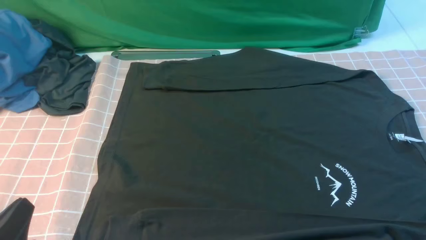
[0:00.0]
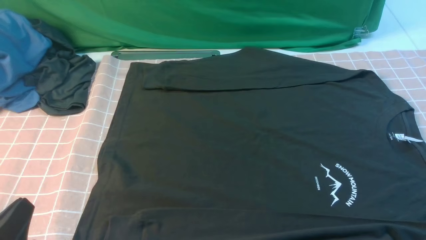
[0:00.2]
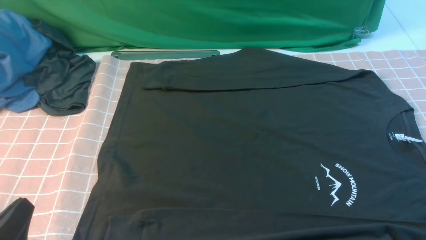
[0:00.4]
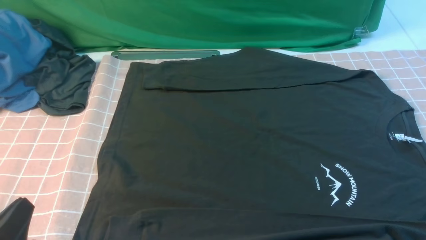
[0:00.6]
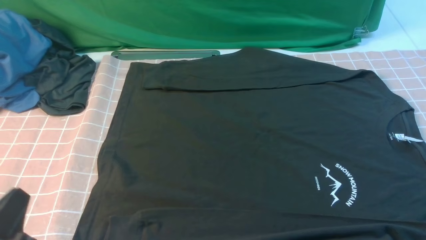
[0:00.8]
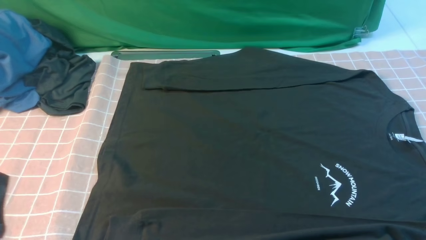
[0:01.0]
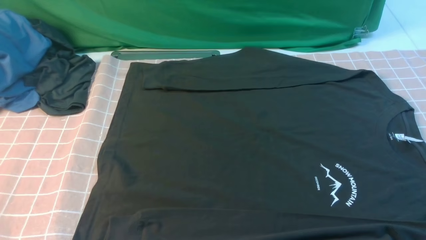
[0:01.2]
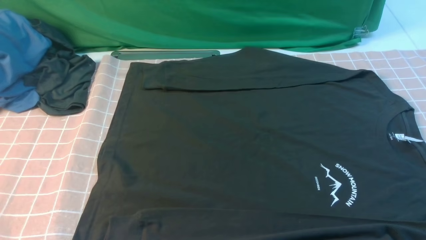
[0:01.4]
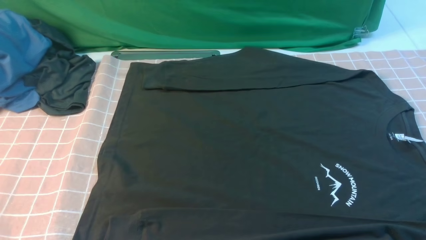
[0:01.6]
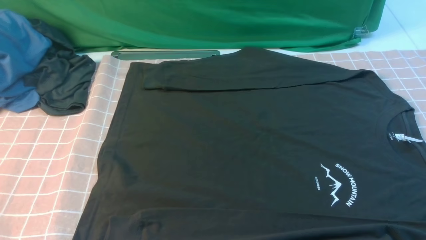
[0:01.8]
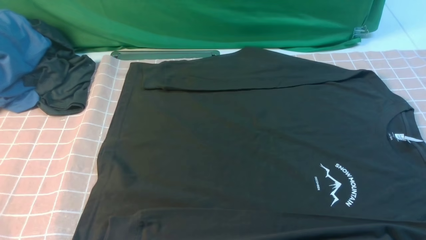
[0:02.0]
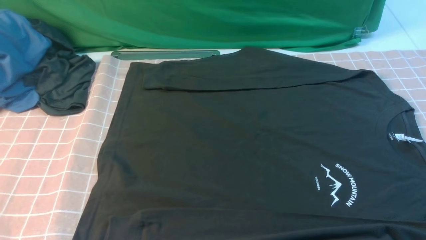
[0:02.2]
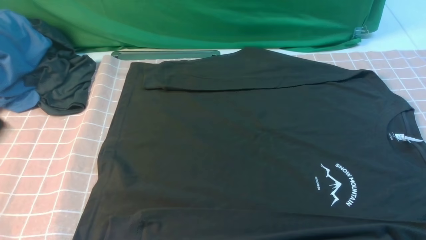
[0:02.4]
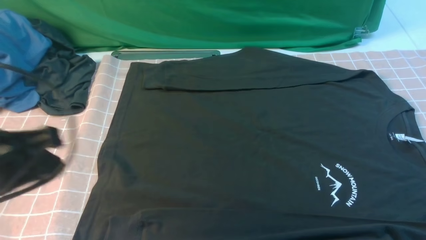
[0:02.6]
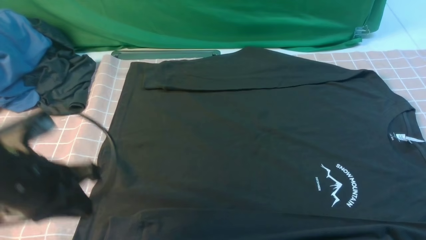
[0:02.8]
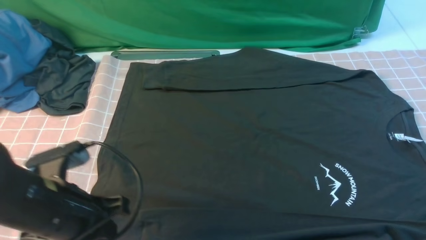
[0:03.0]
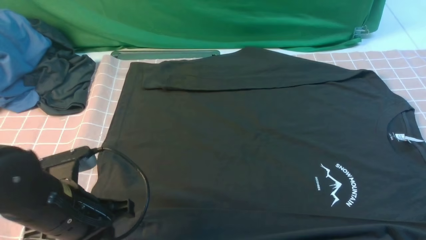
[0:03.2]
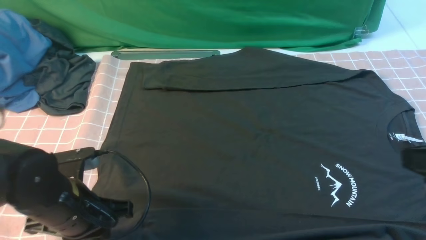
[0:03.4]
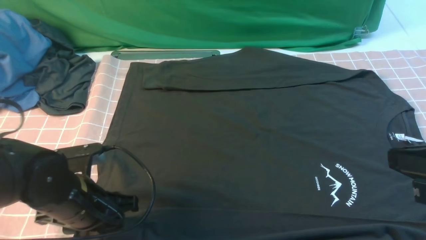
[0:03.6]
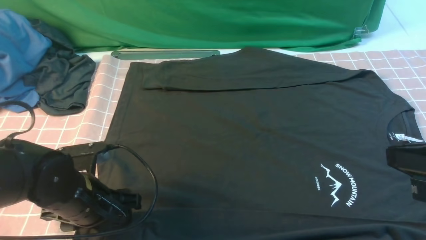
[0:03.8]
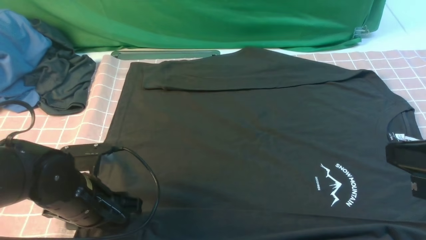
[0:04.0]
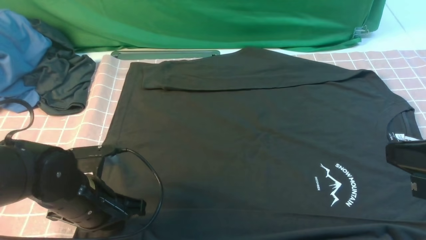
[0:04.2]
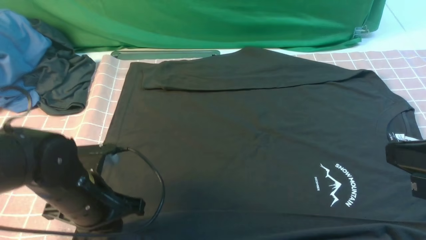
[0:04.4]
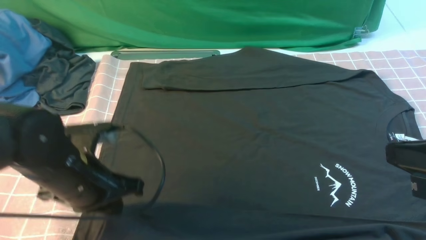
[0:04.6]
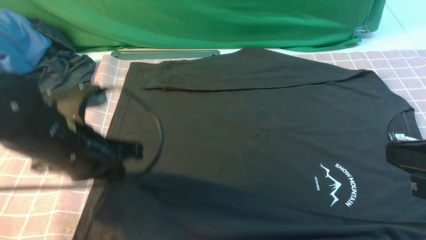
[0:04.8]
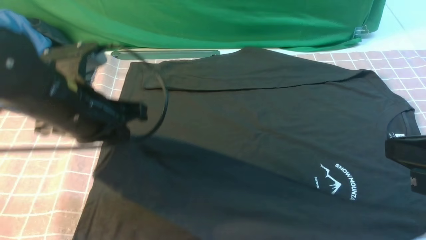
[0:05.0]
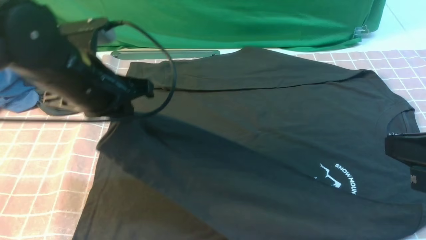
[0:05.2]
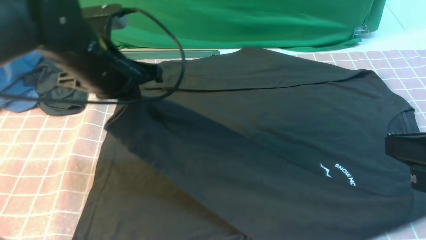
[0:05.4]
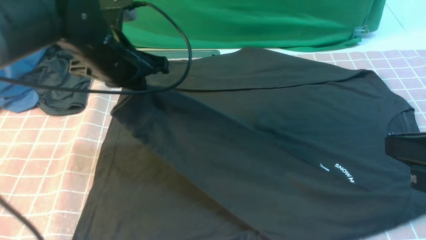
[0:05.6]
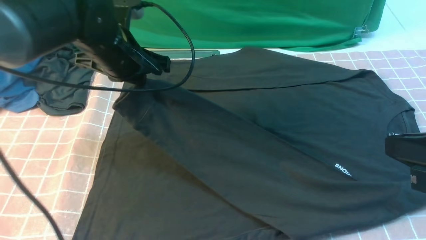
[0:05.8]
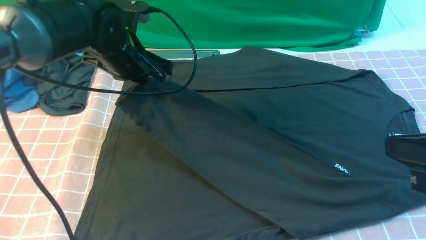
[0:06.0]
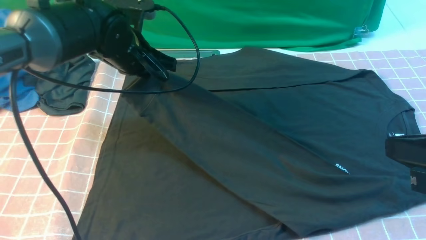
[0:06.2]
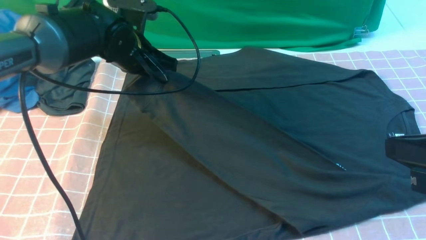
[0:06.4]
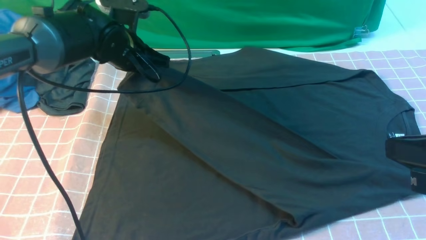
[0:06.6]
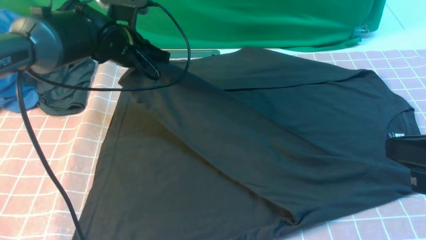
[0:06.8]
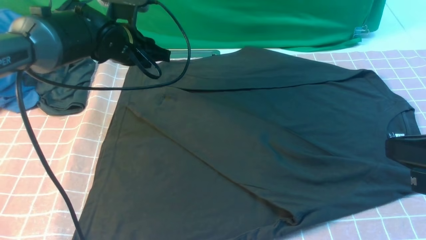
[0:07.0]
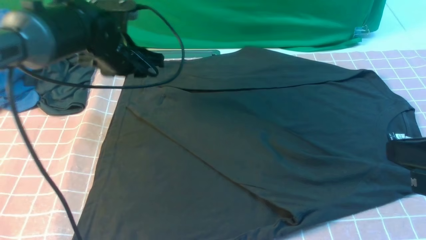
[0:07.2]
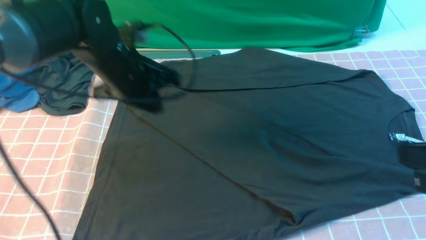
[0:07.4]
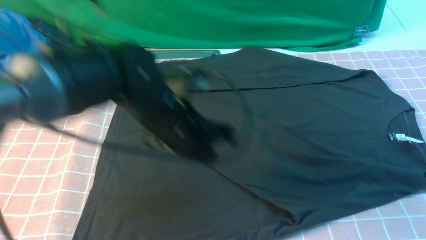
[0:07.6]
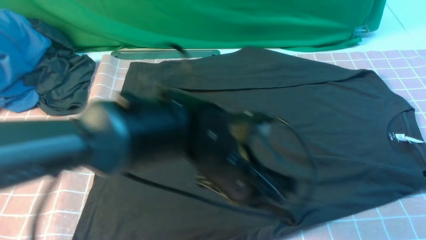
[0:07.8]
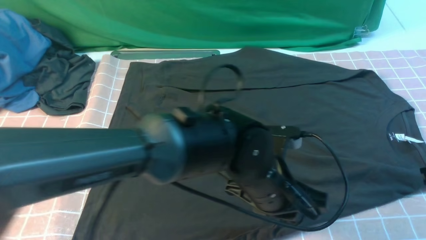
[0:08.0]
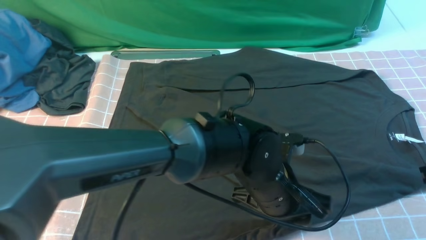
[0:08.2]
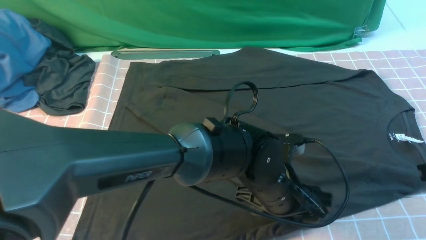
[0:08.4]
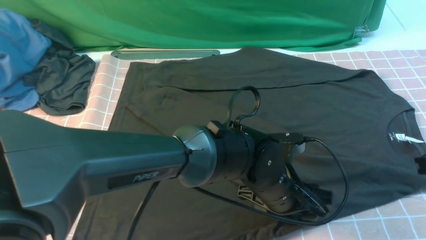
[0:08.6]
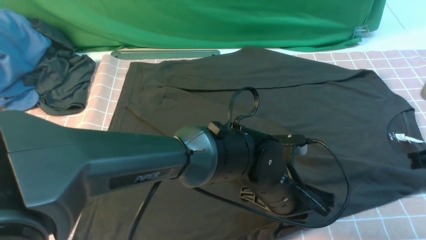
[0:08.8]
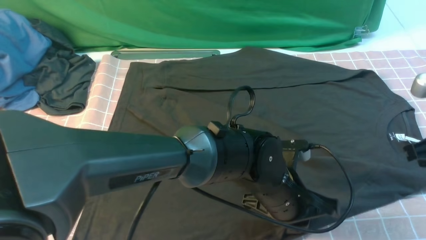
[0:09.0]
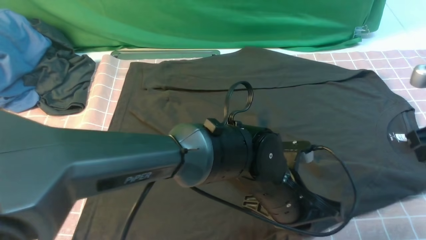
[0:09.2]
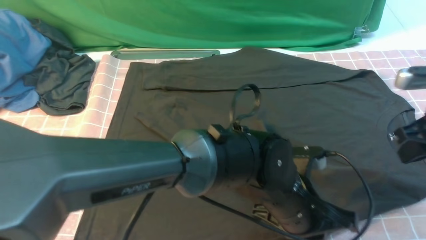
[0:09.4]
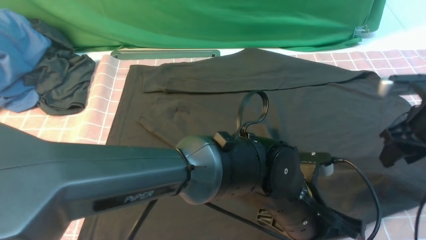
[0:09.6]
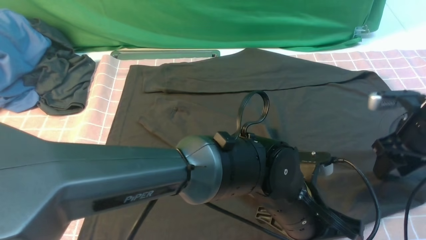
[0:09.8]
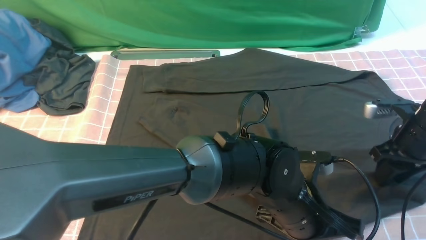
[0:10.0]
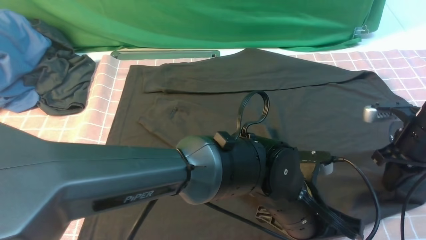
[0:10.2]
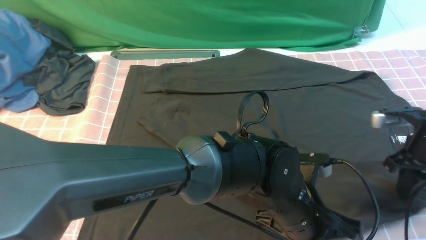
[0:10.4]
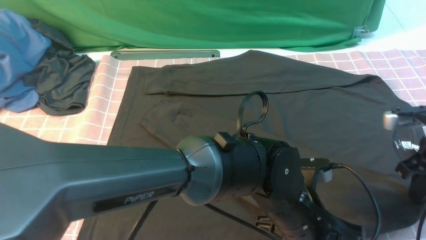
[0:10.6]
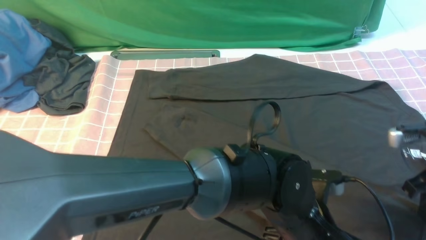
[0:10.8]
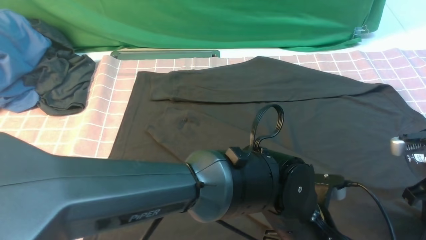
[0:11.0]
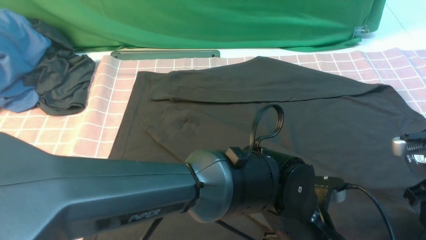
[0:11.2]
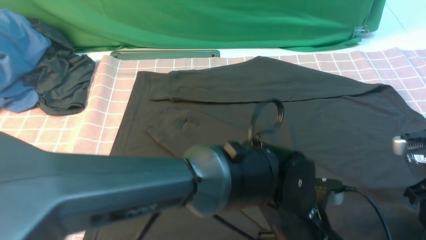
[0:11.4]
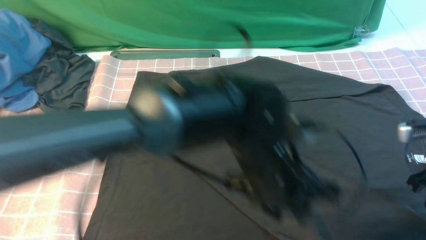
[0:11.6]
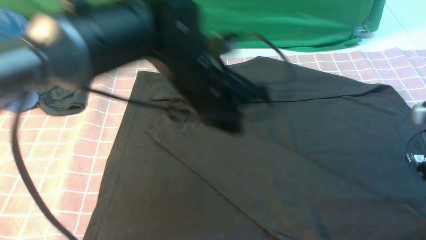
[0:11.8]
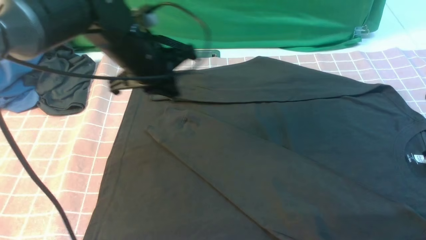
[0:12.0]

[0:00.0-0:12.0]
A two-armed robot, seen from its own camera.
Step, 0:00.0 to 0:04.4: use the left arm to clamp the cuff closest to it.
Step, 0:04.6 to 0:06.8: use the left arm to drag and place the cuff at the centered position on the left edge of the fabric.
0:01.6 to 0:03.0: The left gripper is displaced forward and to the right by roughly 15 cm.
0:03.0 to 0:04.4: The right gripper is displaced forward and to the left by approximately 10 cm. Meanwhile the left gripper shifts by about 5 cm, and opens, then closes again.
0:04.4 to 0:06.0: The left gripper travels forward and upward by roughly 20 cm.
0:06.0 to 0:07.6: The left gripper shifts some 15 cm to the right and backward, and opens, then closes again.
0:07.6 to 0:09.0: The right gripper heads forward, covering approximately 10 cm, while the left gripper travels to the right, downward and backward by approximately 15 cm, and opens and closes again.
0:09.0 to 0:10.4: The right gripper heads downward and forward, covering about 10 cm, and opens, then closes again.
0:10.4 to 0:12.0: The left gripper travels to the left, forward and upward by about 30 cm, and opens, then closes once more. The right gripper moves upward and backward, about 10 cm, and opens, then closes again.

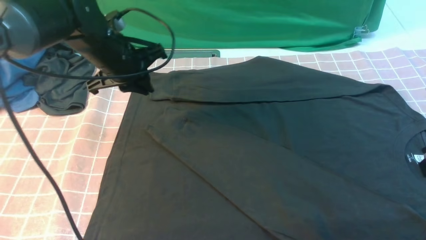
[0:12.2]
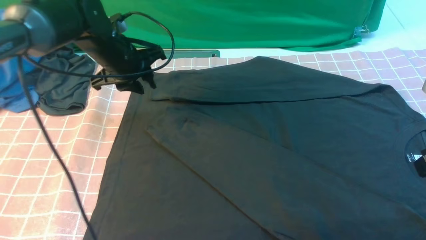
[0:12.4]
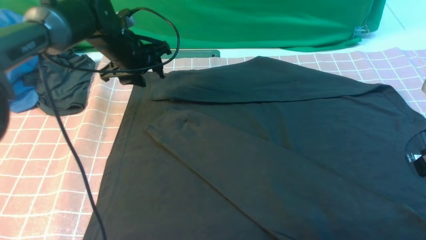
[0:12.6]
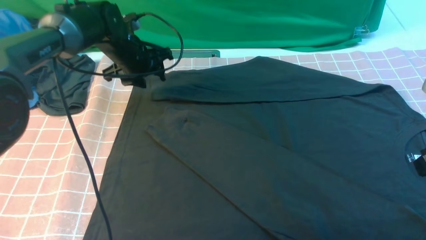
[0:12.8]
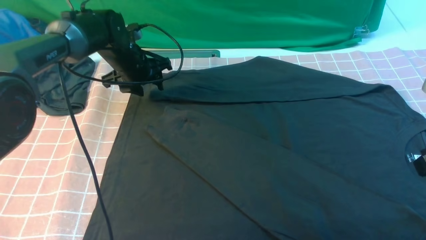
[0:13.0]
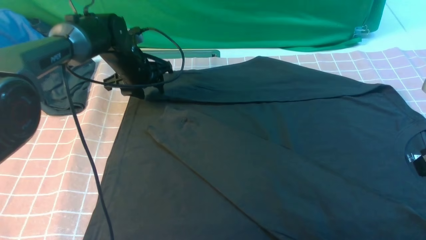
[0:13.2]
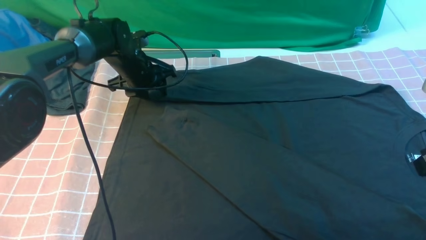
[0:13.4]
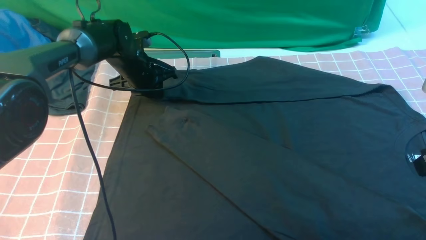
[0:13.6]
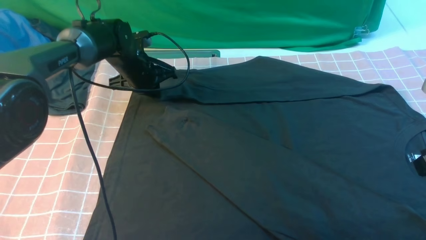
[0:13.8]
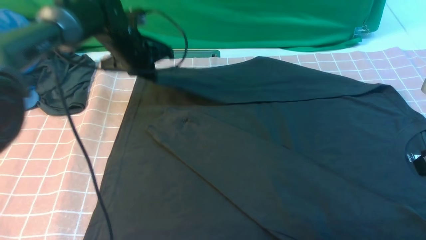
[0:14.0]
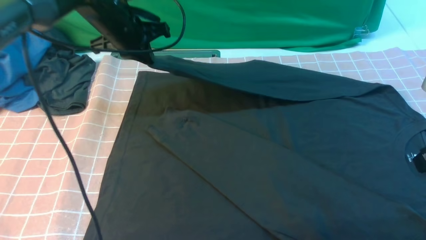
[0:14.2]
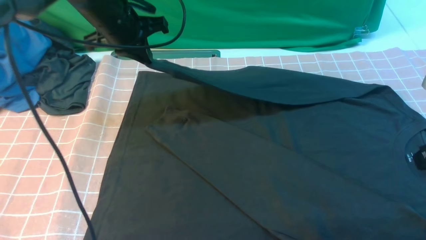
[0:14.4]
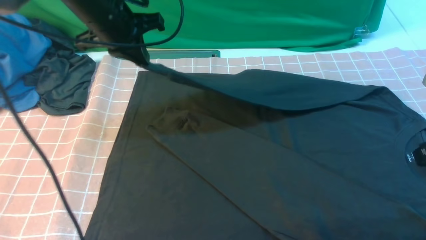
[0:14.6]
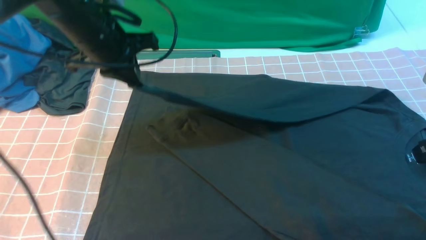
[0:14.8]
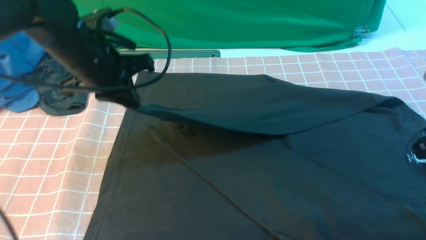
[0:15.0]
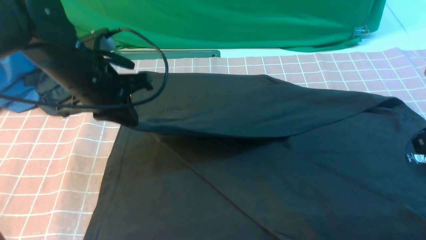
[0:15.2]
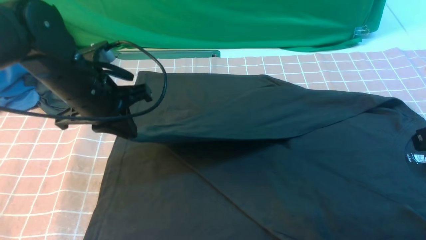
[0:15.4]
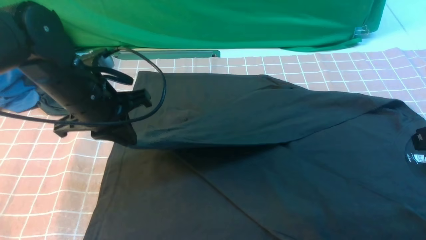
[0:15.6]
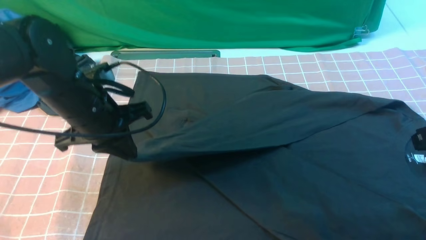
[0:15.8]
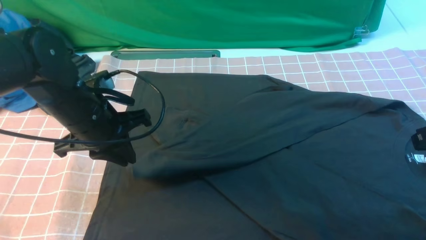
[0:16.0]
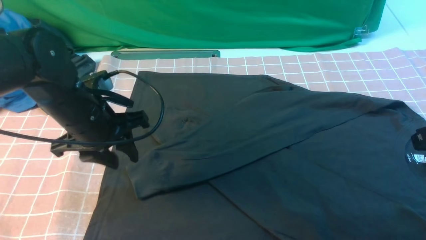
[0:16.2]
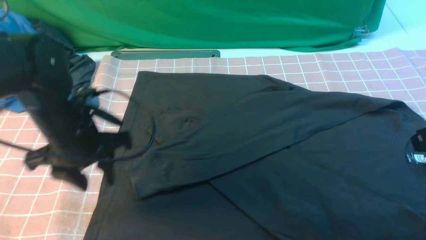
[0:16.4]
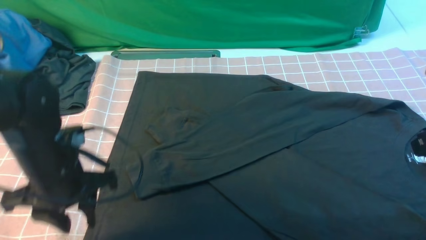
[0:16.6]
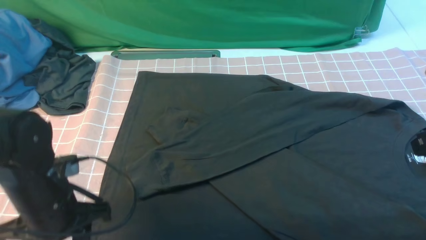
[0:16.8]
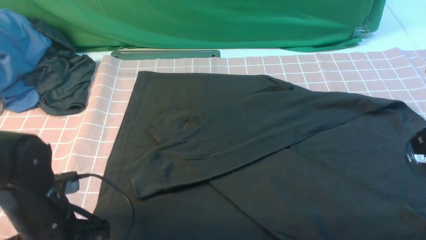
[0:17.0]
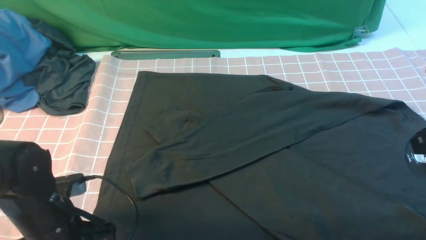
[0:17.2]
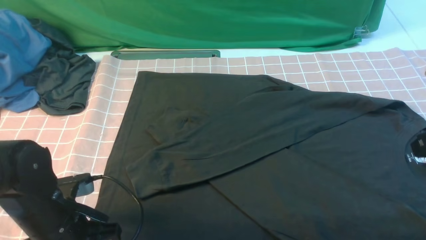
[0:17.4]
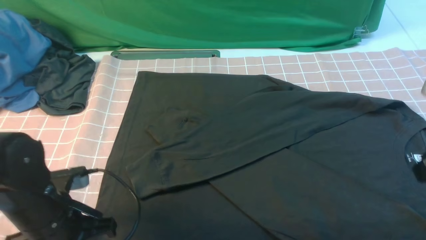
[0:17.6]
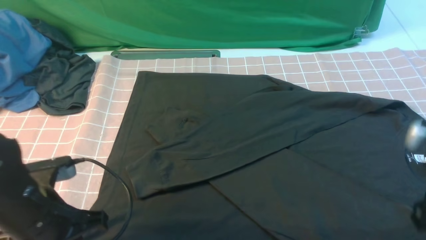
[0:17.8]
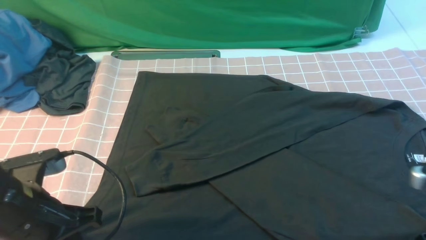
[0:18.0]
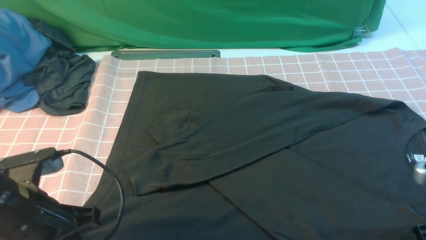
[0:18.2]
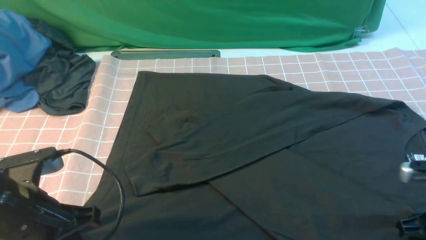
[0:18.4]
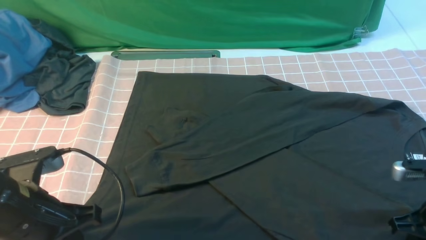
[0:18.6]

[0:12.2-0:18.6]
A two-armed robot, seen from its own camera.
Step, 0:14.0 to 0:16.0: use the left arm to drag and drop the cuff onto the cuff closest to the left arm.
0:12.2 to 0:13.8: The left gripper shifts about 10 cm forward and downward, and opens and closes again.
0:13.8 to 0:15.4: The left gripper travels backward and upward by approximately 20 cm.
0:15.4 to 0:17.0: The left gripper is displaced backward and downward by approximately 15 cm, and opens its fingers.
0:17.0 to 0:18.6: The left gripper travels upward by approximately 5 cm, and closes; the right gripper shifts approximately 15 cm downward.
